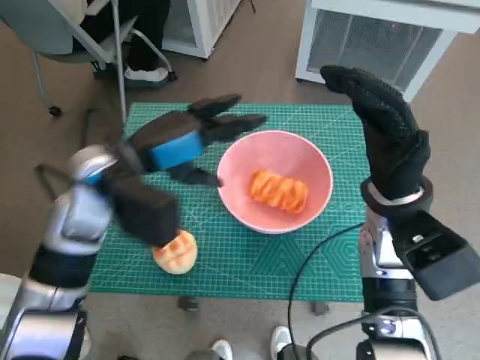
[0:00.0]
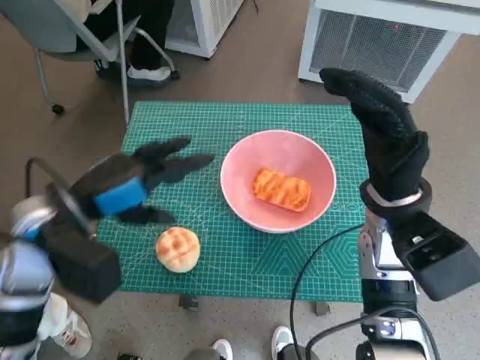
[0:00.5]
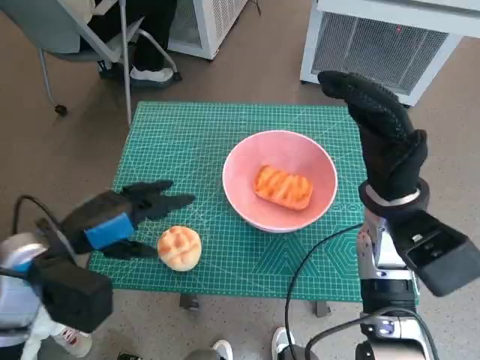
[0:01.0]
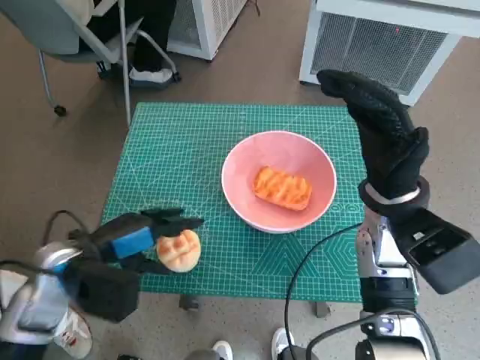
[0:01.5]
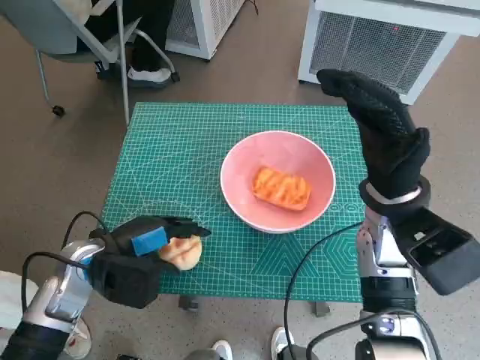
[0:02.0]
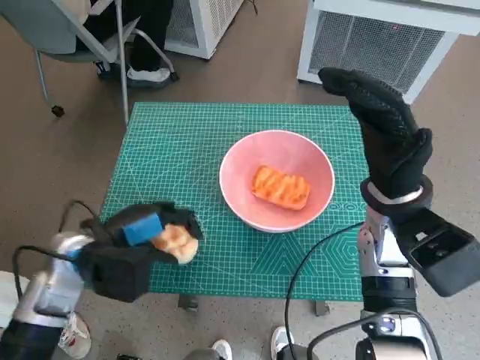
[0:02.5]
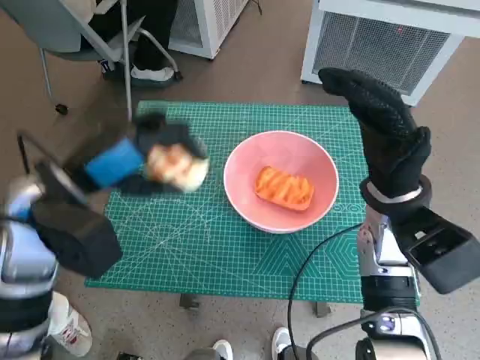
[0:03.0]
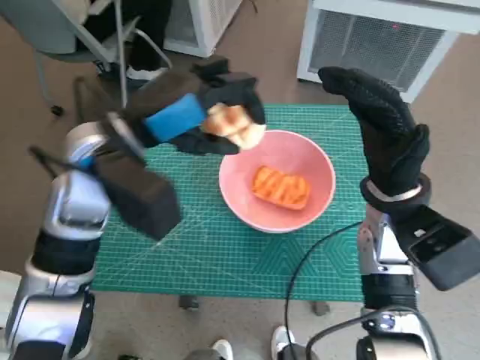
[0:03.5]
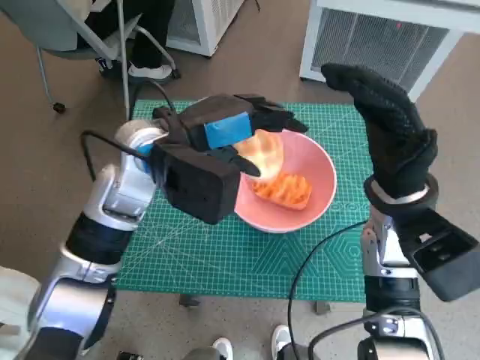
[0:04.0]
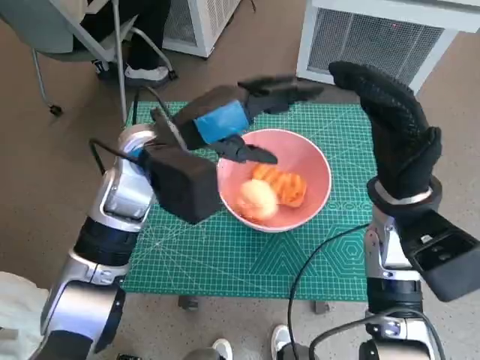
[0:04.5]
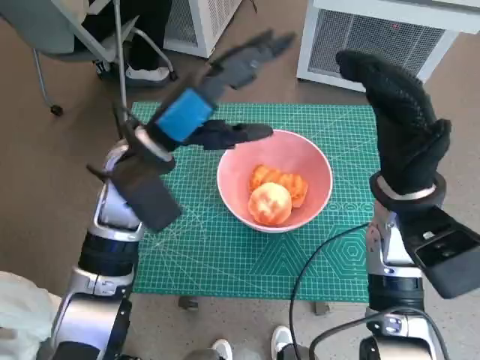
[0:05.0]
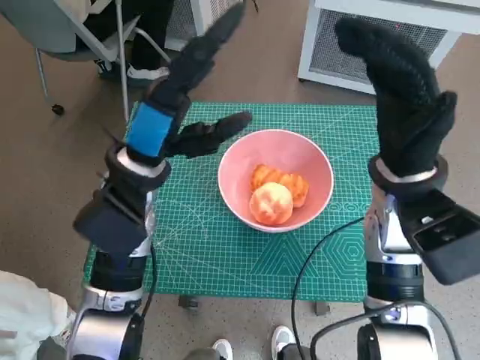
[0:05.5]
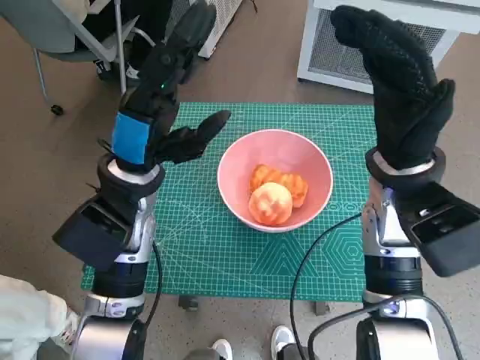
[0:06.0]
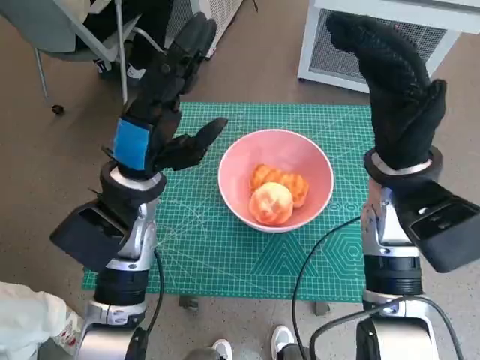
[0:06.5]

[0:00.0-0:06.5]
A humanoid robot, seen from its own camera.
Task of the whole recording: Push the bowl to the center of the table and put the bread into the bowl.
Step, 0:00.0 to 0:02.0: Grasp the round bread with left hand.
Step, 0:02.5 to 0:04.0: Place the round bread in pink bowl with left hand.
0:00.0 to 0:02.0: The left hand moves downward, to the left and backward, some 15 cm.
0:02.0 to 0:04.5: The left hand heads upward, to the right and forward, covering roughly 20 cm.
0:04.5 to 0:06.5: The left hand moves about 5 cm.

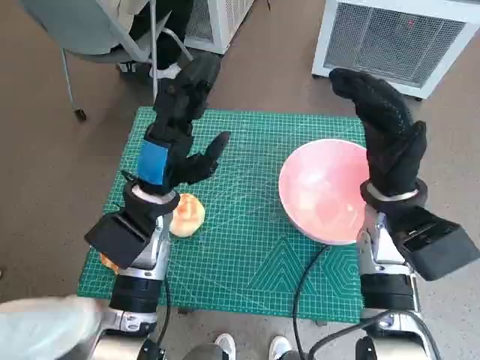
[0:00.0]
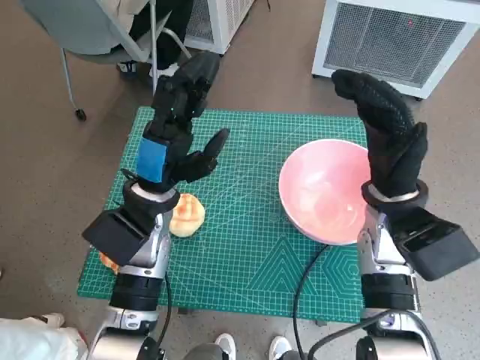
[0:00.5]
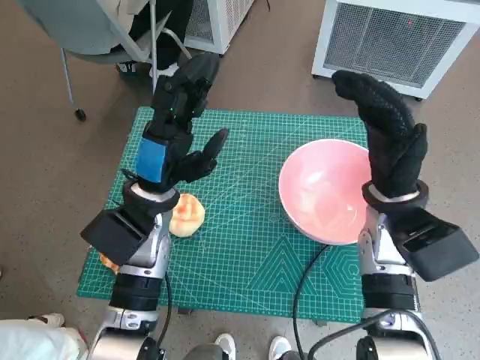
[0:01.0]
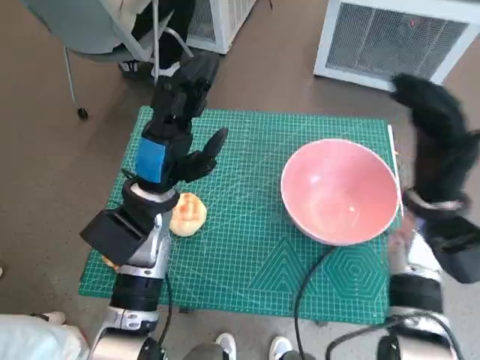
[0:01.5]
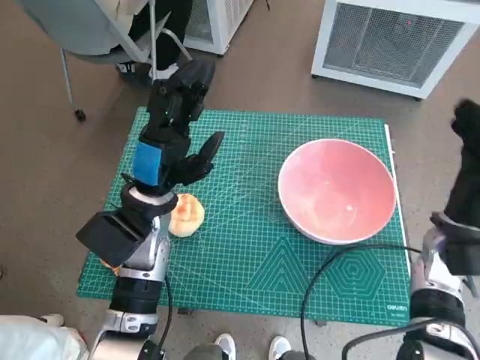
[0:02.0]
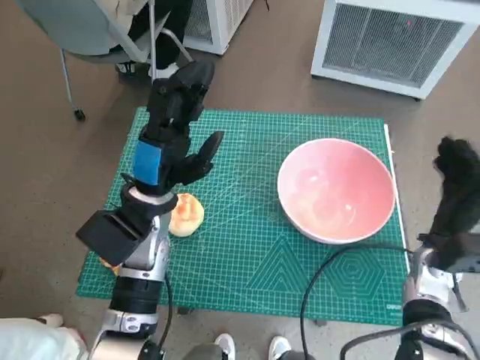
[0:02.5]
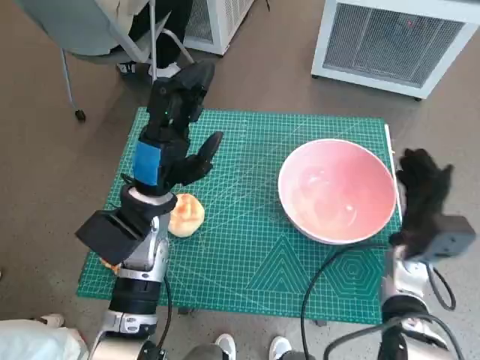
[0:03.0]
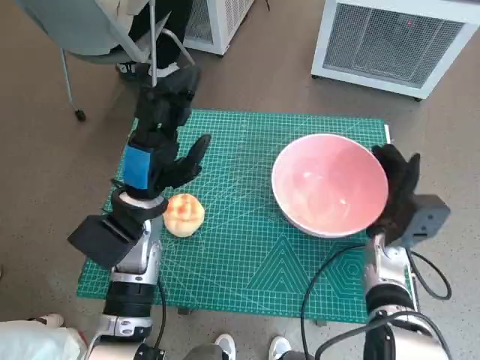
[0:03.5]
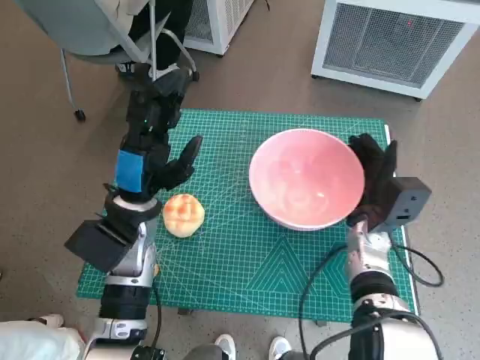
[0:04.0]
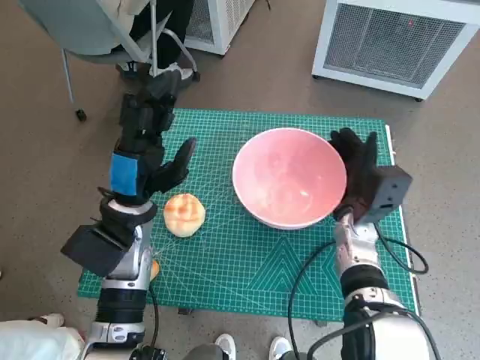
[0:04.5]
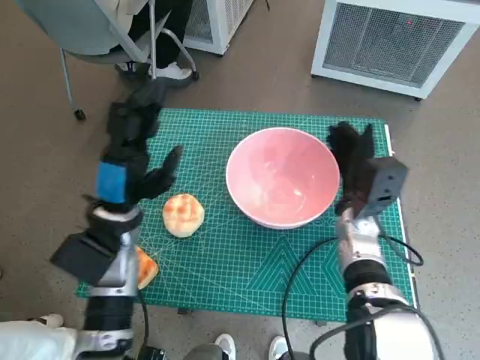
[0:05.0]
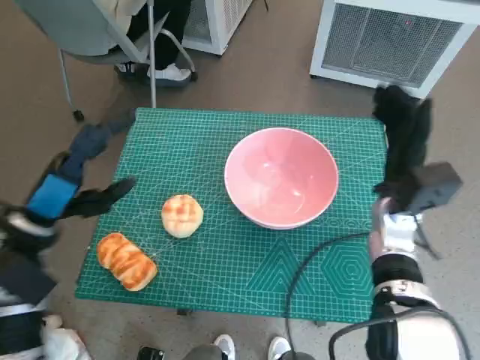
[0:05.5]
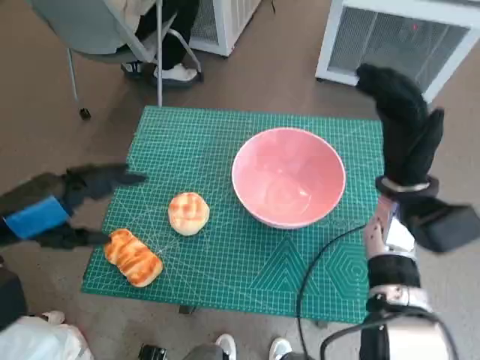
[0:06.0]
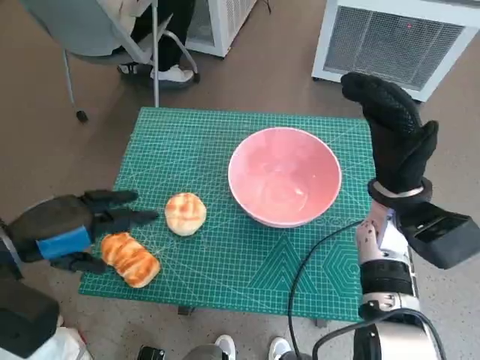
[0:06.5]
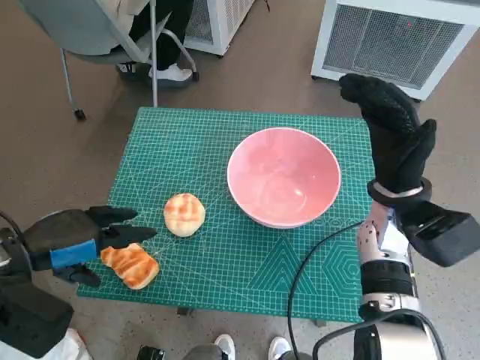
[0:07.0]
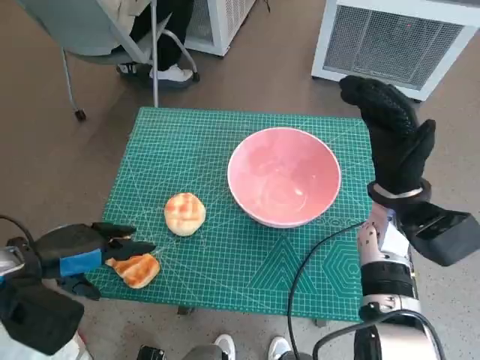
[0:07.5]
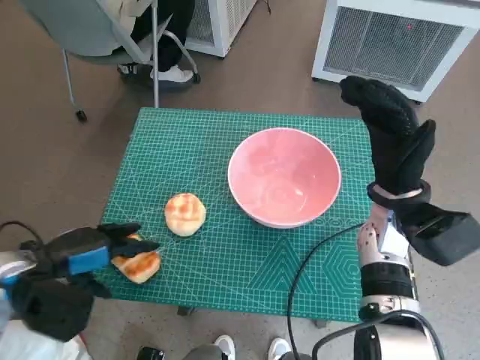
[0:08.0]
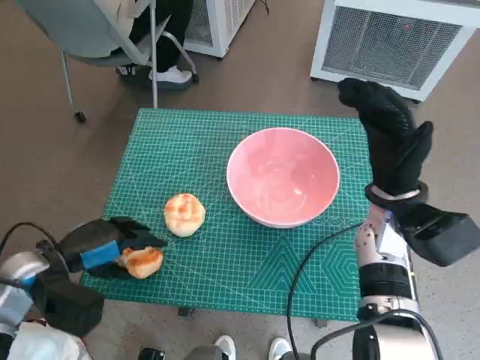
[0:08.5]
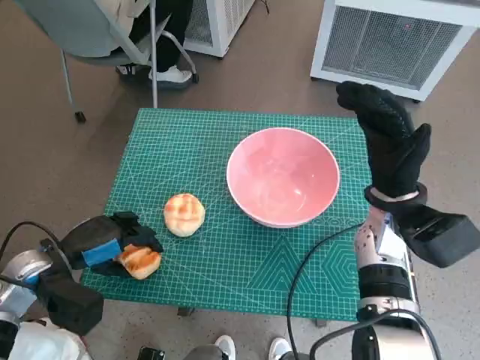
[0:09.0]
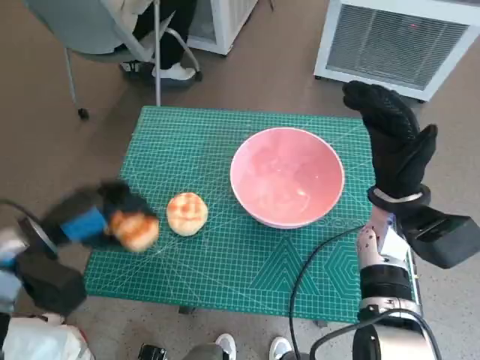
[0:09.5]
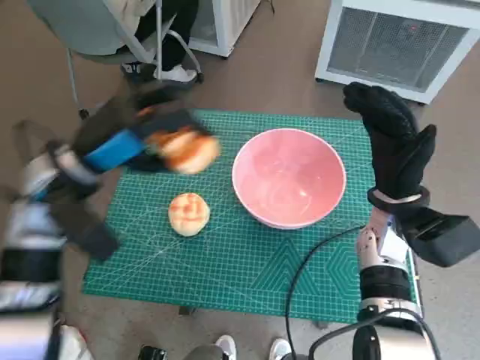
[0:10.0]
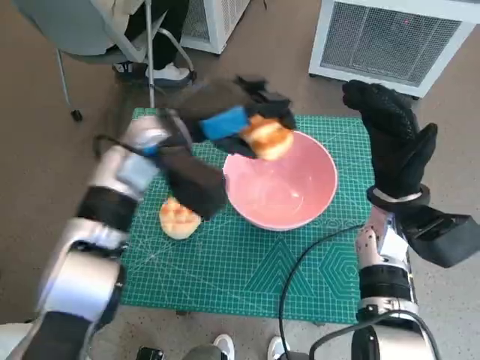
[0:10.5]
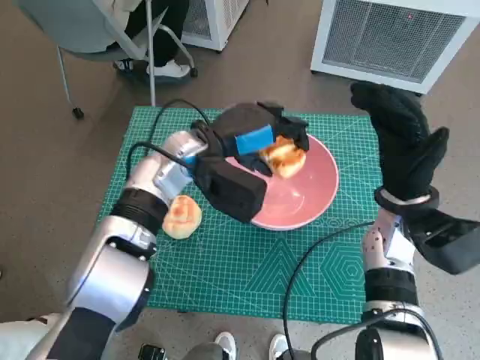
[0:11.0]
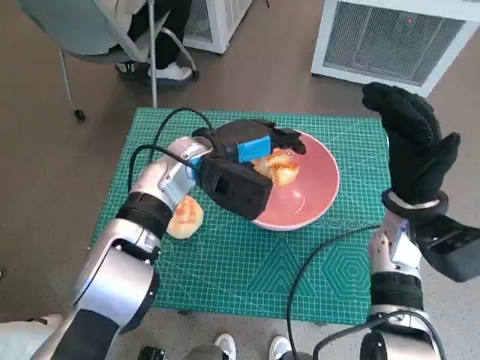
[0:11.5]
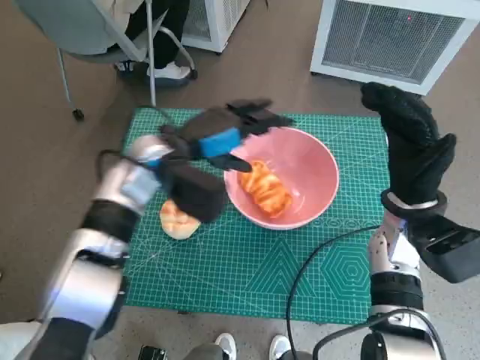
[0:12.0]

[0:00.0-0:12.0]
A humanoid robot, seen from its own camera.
Task of the whole recording: Push the bowl to the center of the table and put the bread into the bowl.
Step, 0:00.0 to 0:05.0: Move the pink bowl to the center of table with right hand.
Step, 0:05.5 to 0:09.0: Grasp the long bread with left hand.
0:02.0 to 0:04.0: The right hand moves to the left and downward, roughly 10 cm.
0:04.0 to 0:06.0: The left hand moves to the left, upward and backward, about 15 cm. The right hand heads upward, covering about 10 cm.
0:06.0 to 0:08.0: The left hand moves downward, some 10 cm.
0:08.0 to 0:10.0: The left hand goes roughly 15 cm upward, forward and to the right.
0:10.0 to 0:12.0: The left hand moves to the right and forward, roughly 15 cm.

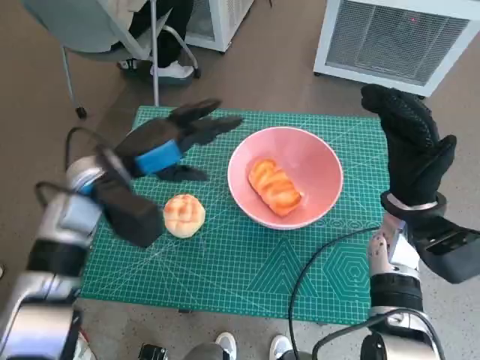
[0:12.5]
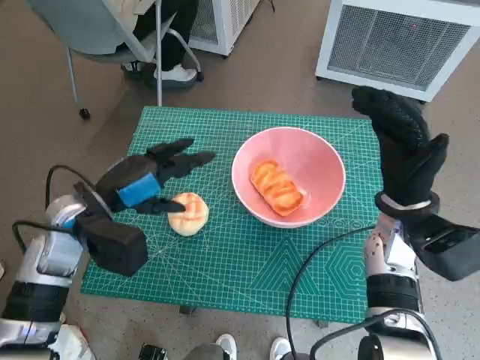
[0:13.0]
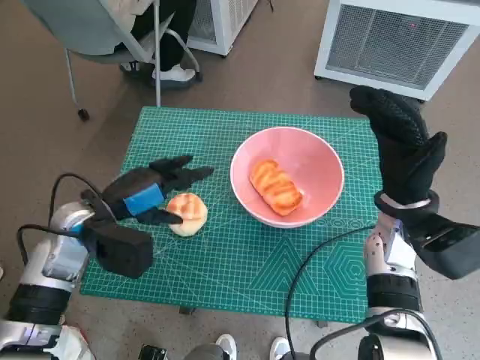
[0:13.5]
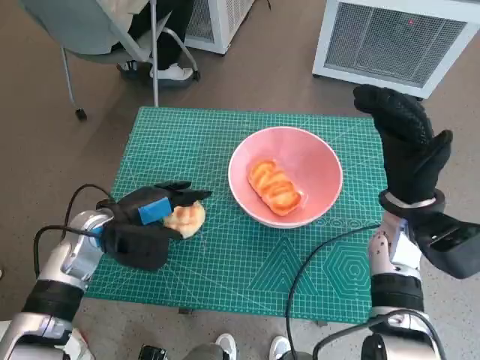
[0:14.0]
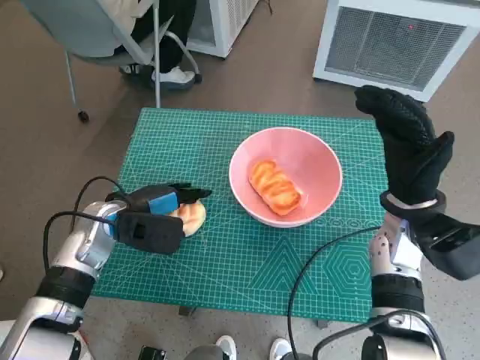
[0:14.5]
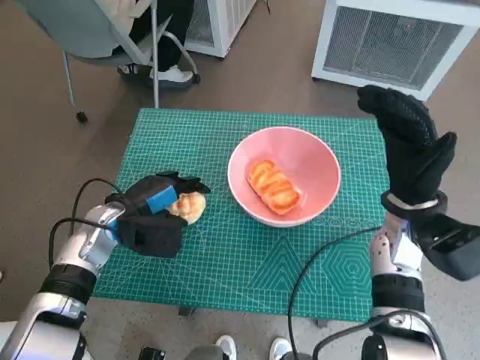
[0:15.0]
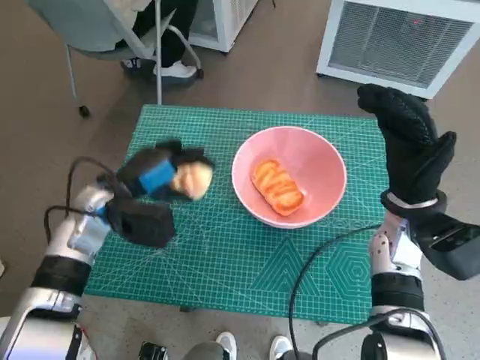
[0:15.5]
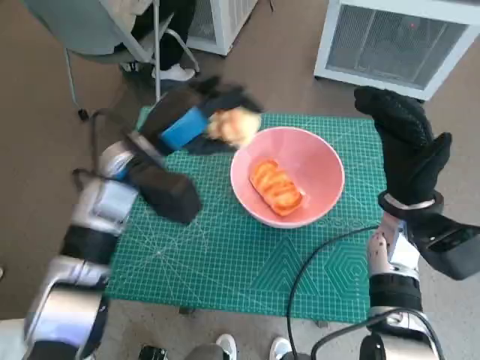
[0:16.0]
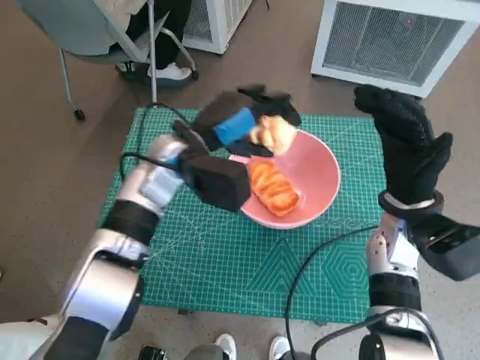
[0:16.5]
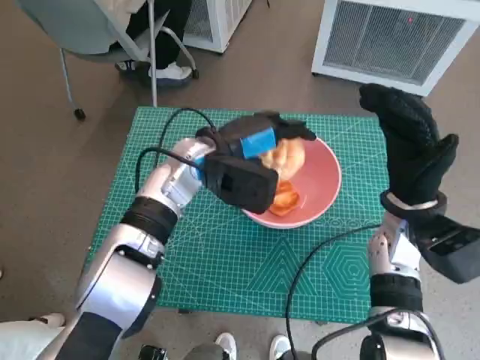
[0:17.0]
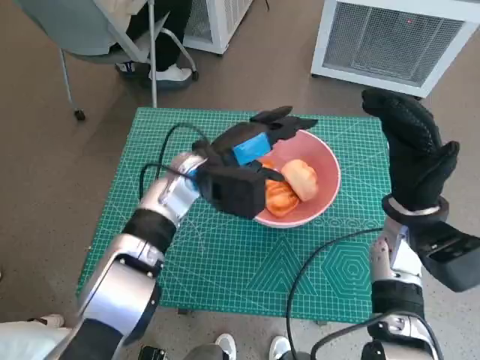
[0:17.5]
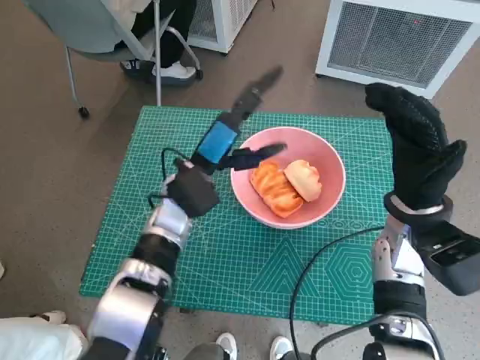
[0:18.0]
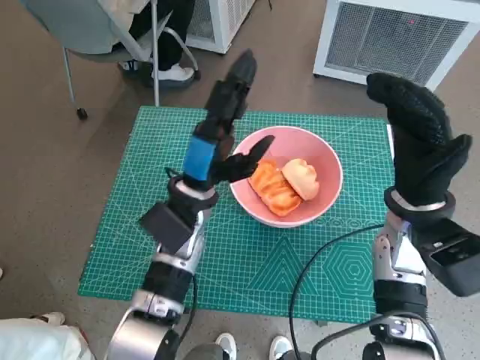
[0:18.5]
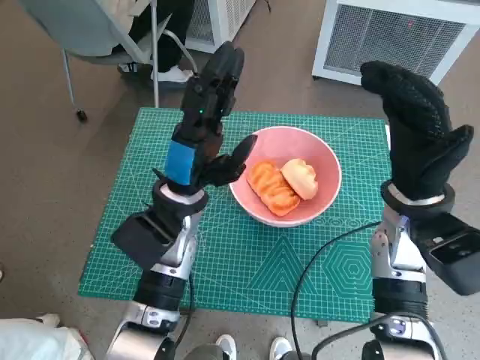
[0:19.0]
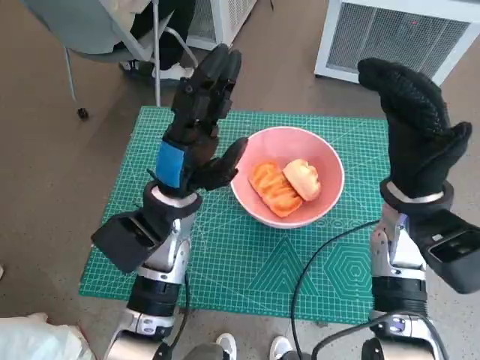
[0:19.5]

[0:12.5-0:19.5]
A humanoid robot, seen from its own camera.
Task of the whole recording: Push the bowl to the center of the table and put the bread into the bowl.
Step, 0:12.5 to 0:14.5: Grasp the round bread with left hand.
Step, 0:15.0 to 0:17.5: Place the round bread in pink bowl with left hand.
0:12.5 to 0:14.5: The left hand travels downward by approximately 10 cm.
0:14.5 to 0:16.0: The left hand goes approximately 10 cm upward and to the right.
0:16.0 to 0:17.5: The left hand goes roughly 5 cm to the right.
0:17.5 to 0:19.5: The left hand shifts roughly 5 cm backward.
